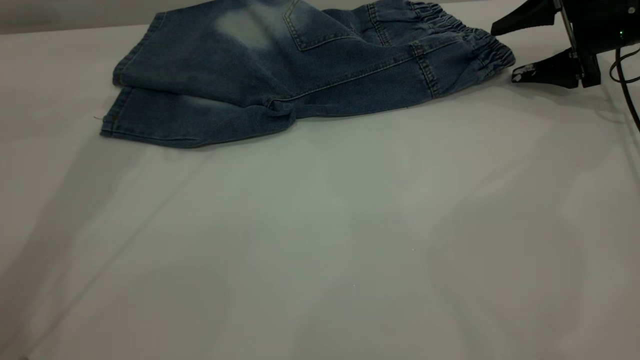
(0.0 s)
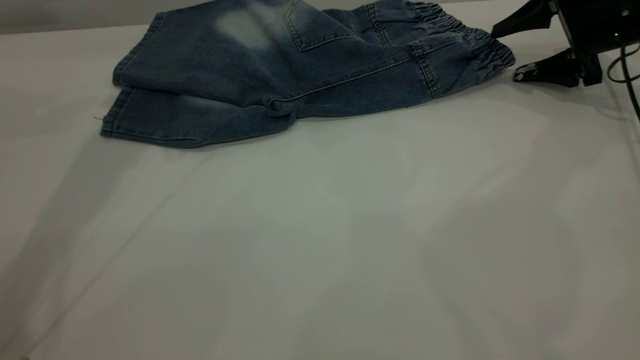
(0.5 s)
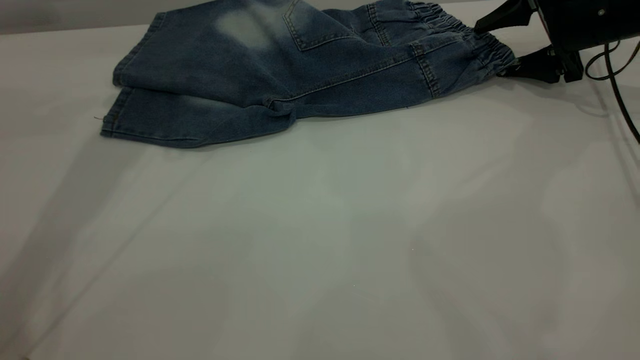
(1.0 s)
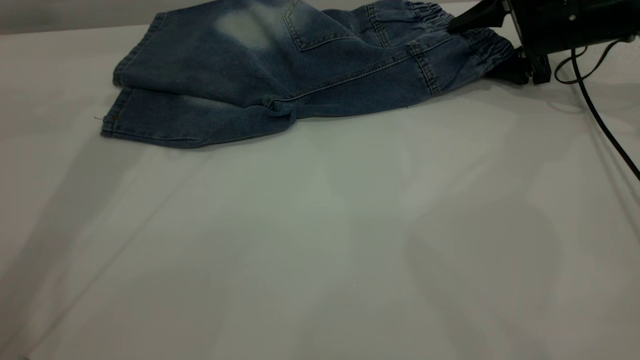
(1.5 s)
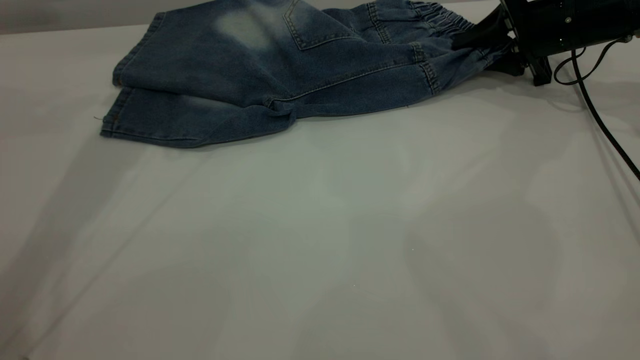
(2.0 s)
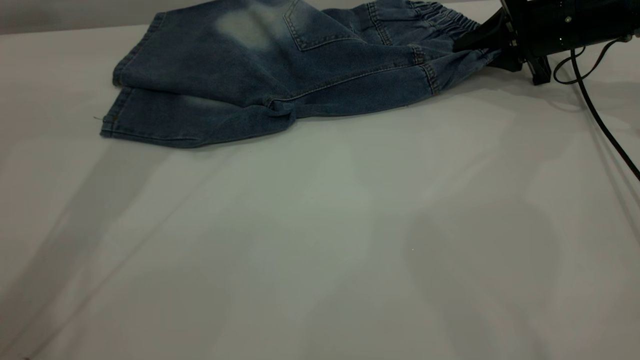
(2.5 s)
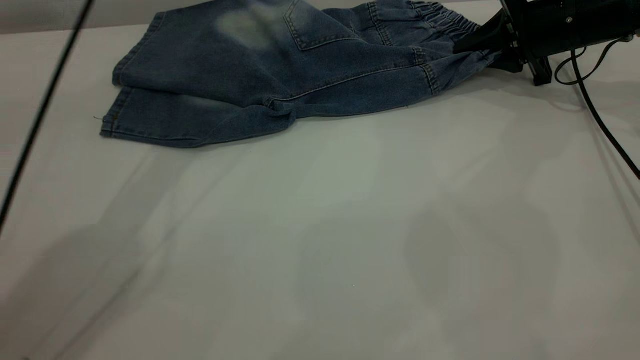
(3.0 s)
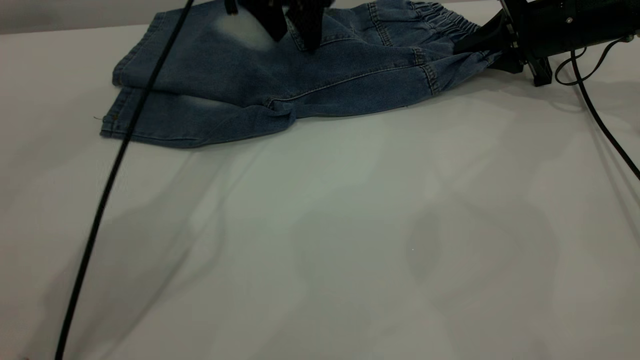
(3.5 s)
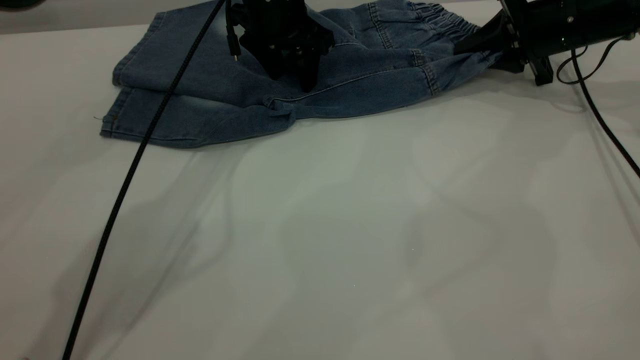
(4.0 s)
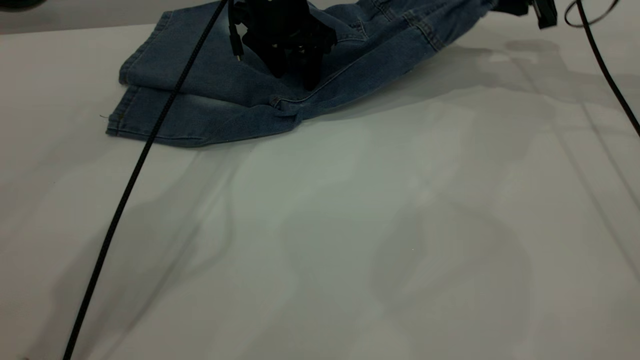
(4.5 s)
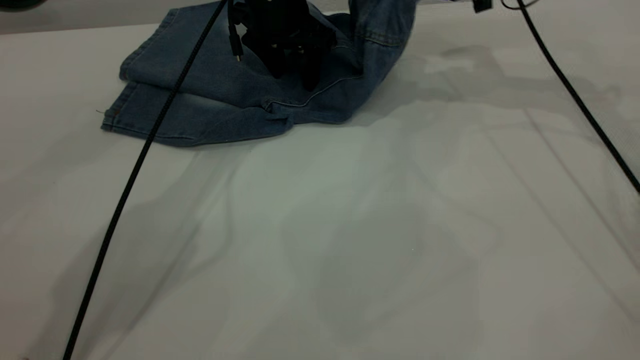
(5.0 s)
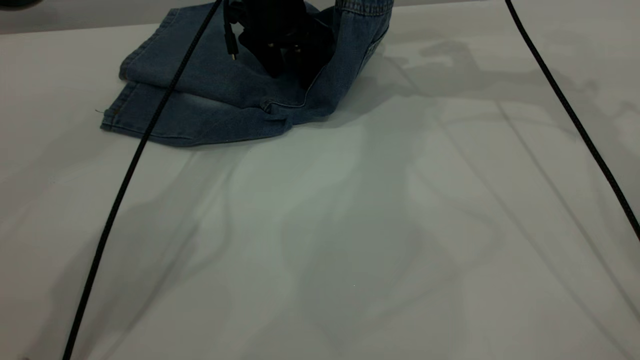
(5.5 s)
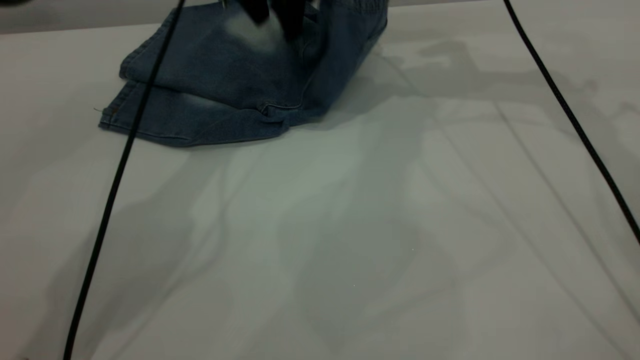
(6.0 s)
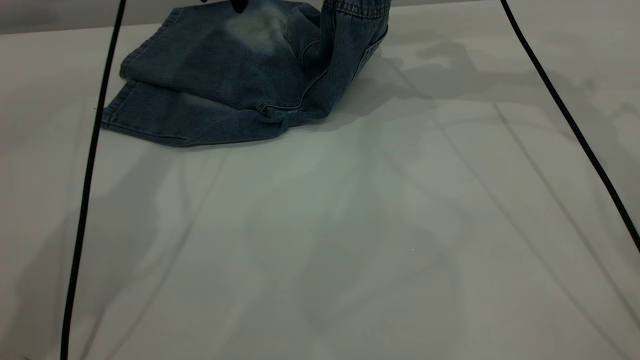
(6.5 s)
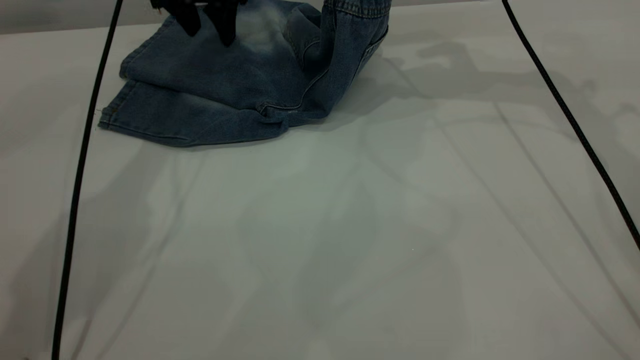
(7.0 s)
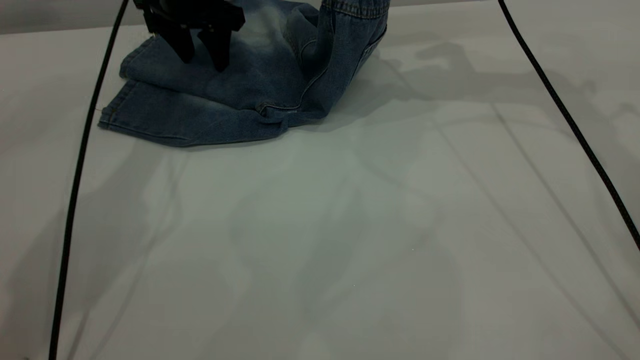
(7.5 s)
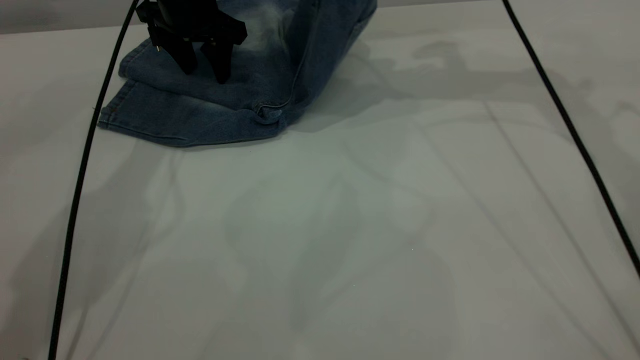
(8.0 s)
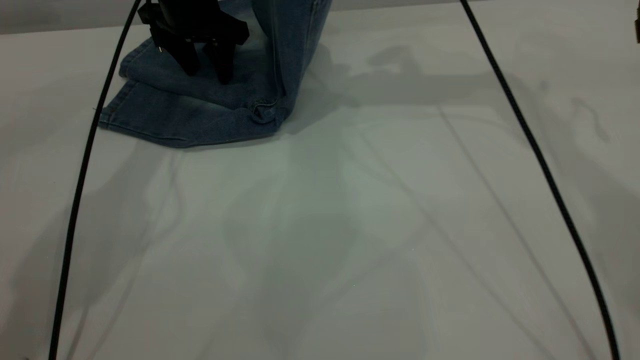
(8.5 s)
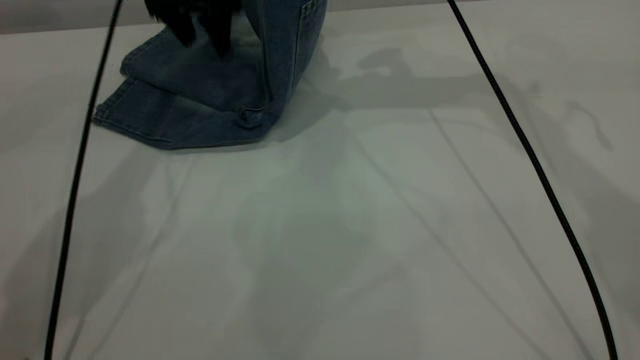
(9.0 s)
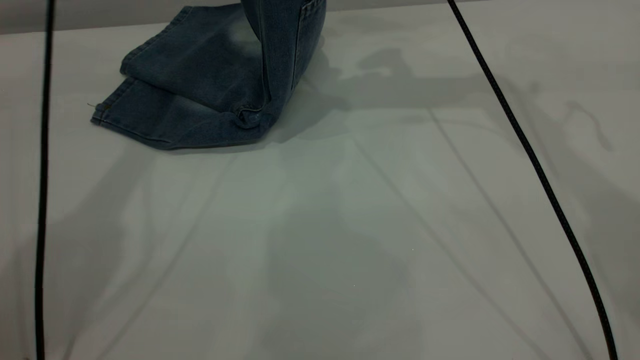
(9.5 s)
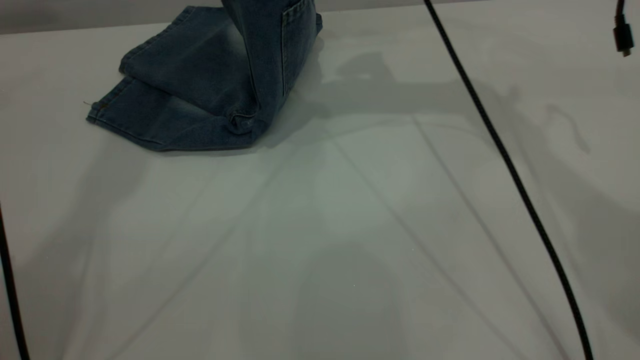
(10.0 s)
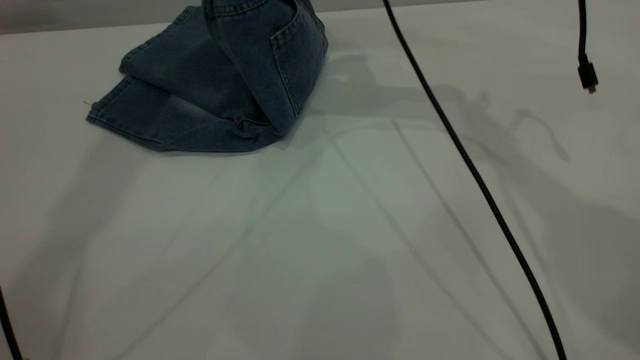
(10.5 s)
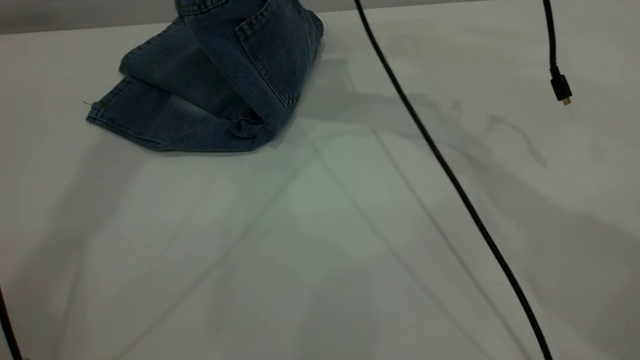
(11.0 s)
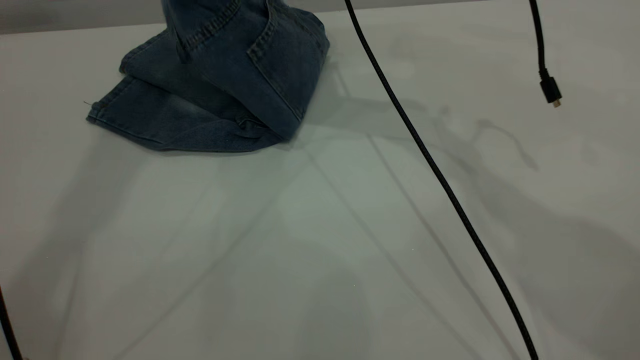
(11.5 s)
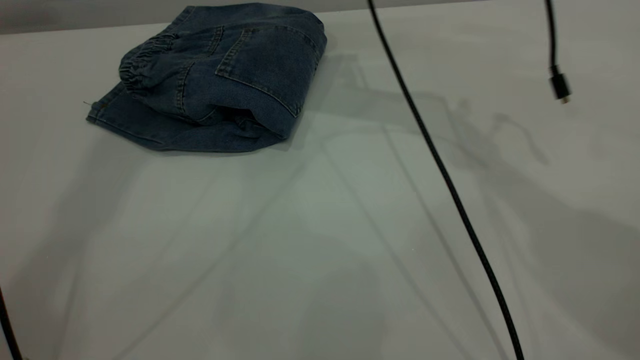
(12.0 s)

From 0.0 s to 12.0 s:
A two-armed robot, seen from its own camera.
Step, from 0.0 s to 11.5 s: Fold your pants from right to left.
From 0.0 s to 2.0 s: The right gripper moves approximately 5 cm, and closes.
From 2.0 s to 4.0 s: The left gripper heads downward, to the right and forward, covering some 25 cm.
From 4.0 s to 6.0 s: The right gripper shifts about 15 cm upward and to the left. The left gripper goes some 5 cm upward.
From 6.0 s to 8.0 s: The left gripper goes roughly 10 cm to the left and downward.
From 8.0 s to 10.0 s: The right gripper shifts roughly 10 cm to the left, while the left gripper goes approximately 30 cm upward.
From 10.0 s to 12.0 s: The right gripper shifts by roughly 5 cm, and opens, while the left gripper moves approximately 5 cm.

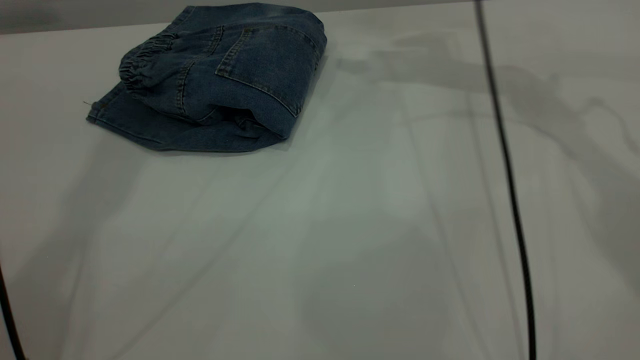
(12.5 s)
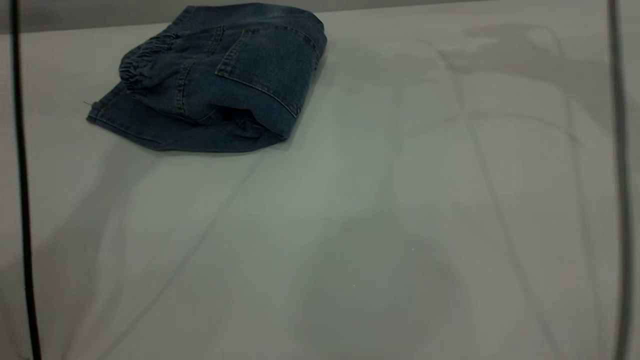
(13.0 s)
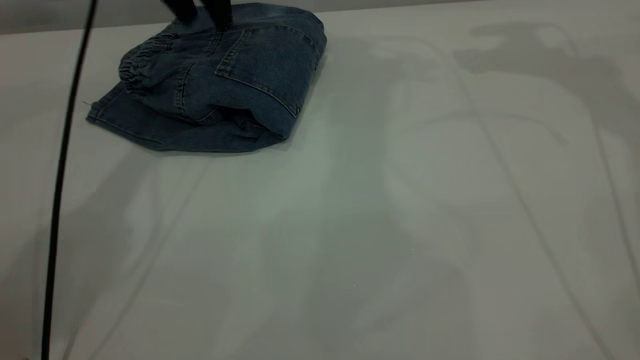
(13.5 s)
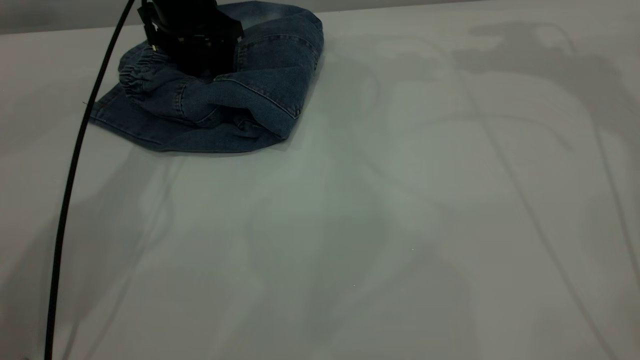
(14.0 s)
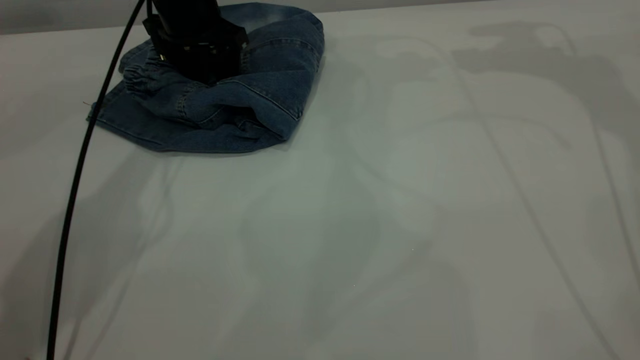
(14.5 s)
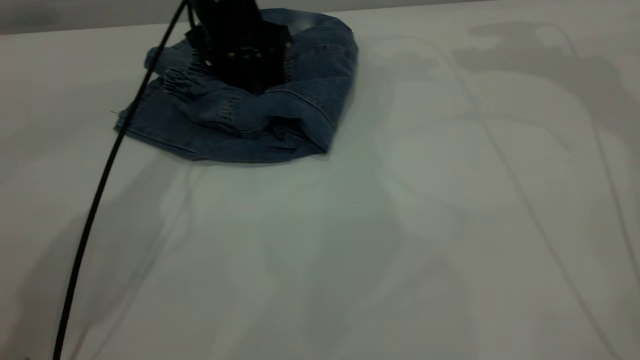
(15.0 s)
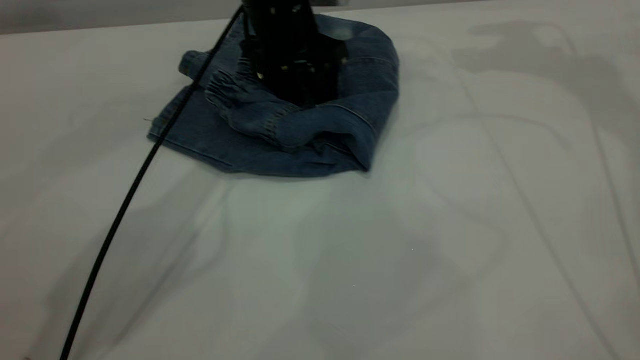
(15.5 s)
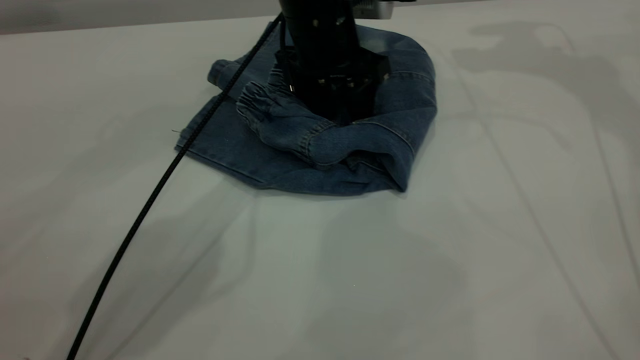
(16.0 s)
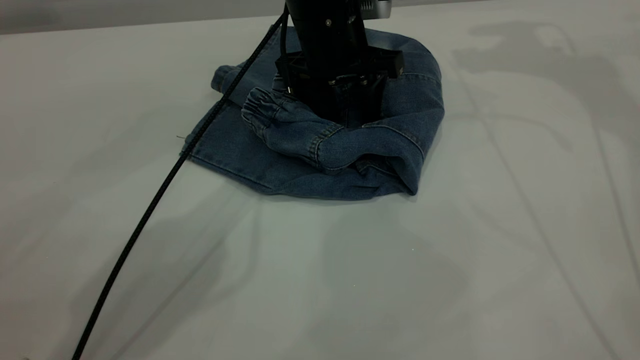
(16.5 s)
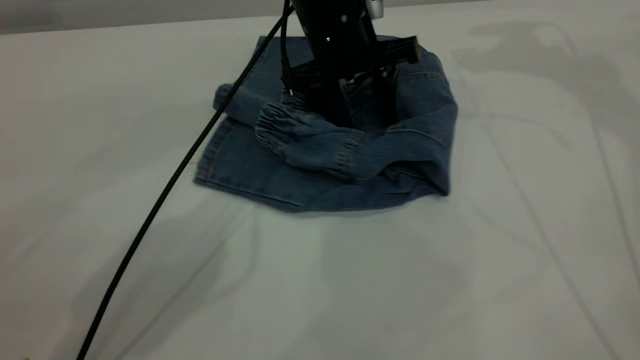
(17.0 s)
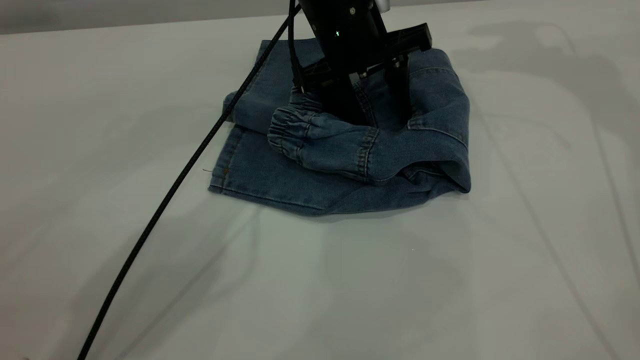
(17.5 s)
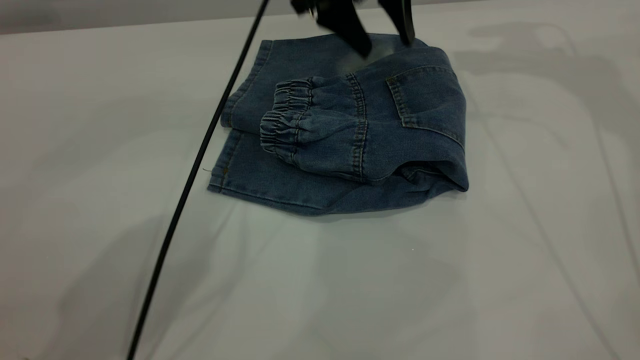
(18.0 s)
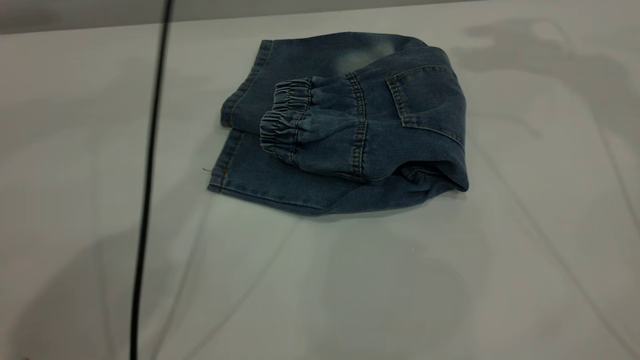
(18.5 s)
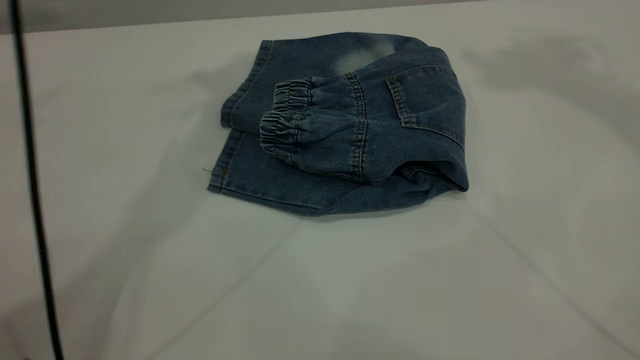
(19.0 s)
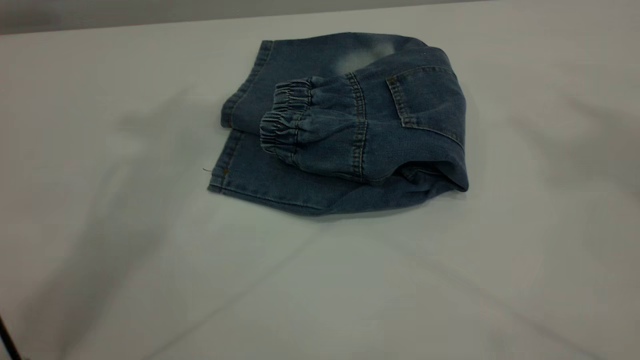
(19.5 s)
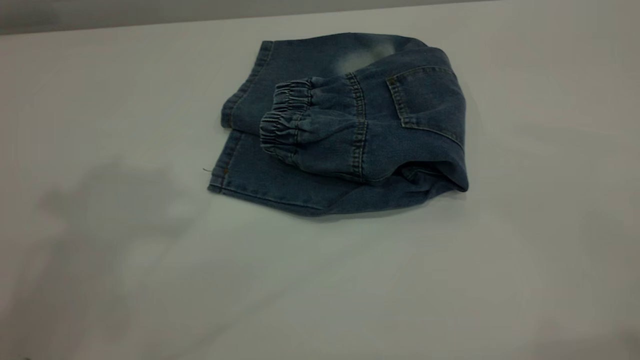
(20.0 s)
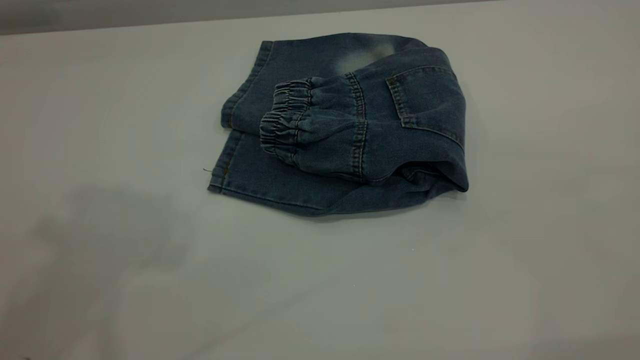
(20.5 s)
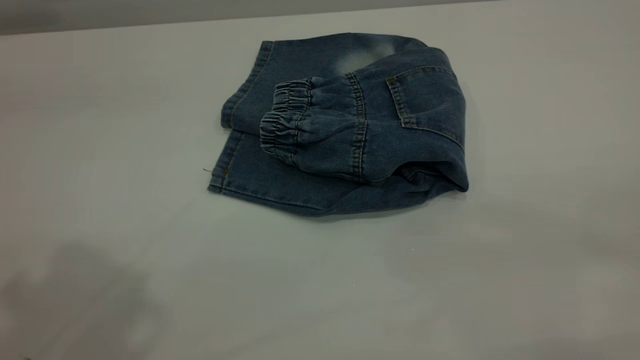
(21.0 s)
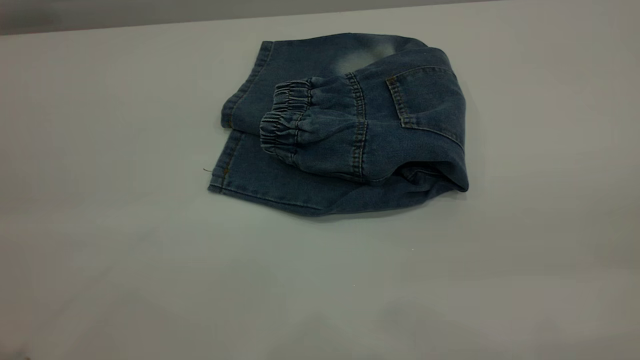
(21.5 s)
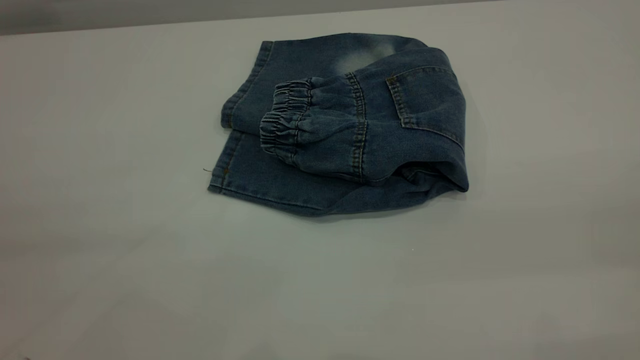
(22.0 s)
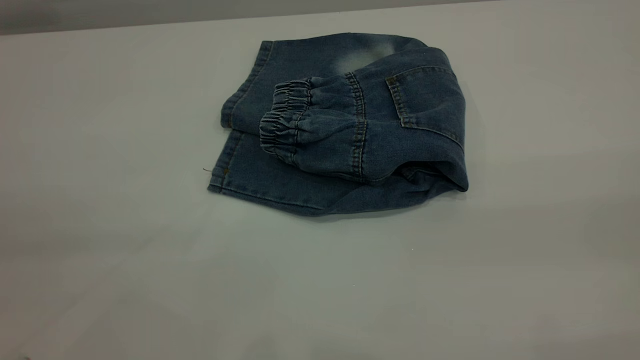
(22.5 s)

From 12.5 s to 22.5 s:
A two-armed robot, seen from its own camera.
From 12.5 s to 14.5 s: The left gripper moves downward, about 35 cm. Meanwhile the right gripper goes approximately 10 cm to the right and upward.
From 14.5 s to 16.5 s: The left gripper shifts about 15 cm to the right and backward.
From 16.5 s to 18.5 s: The right gripper heads upward, covering some 10 cm, while the left gripper moves upward, about 20 cm.
From 18.5 s to 20.5 s: The left gripper moves backward, upward and to the left, roughly 35 cm.
